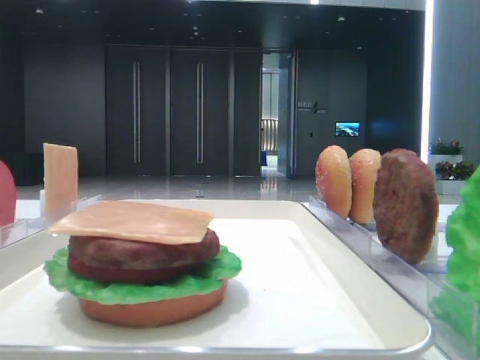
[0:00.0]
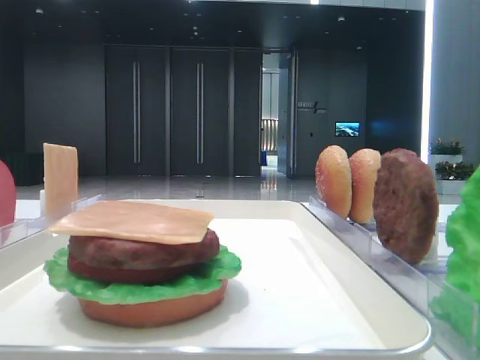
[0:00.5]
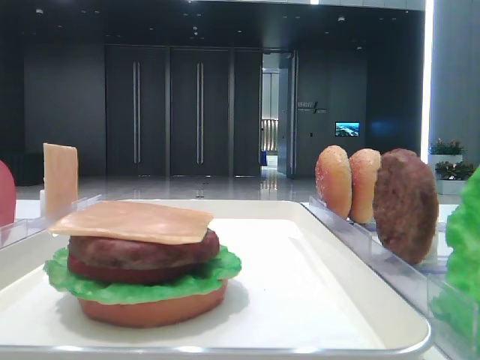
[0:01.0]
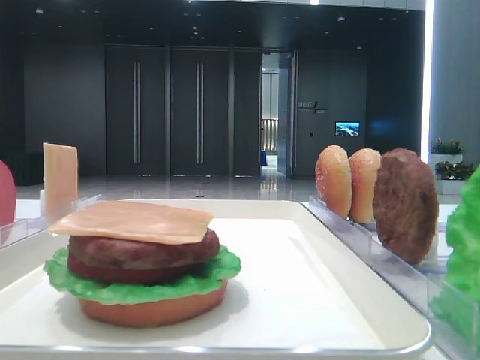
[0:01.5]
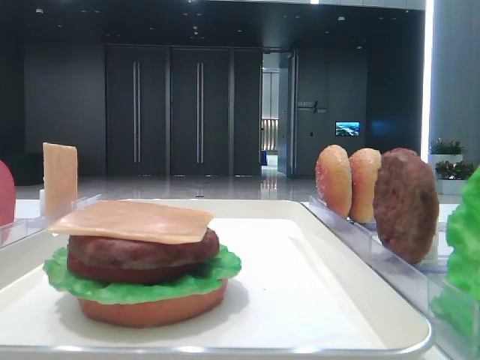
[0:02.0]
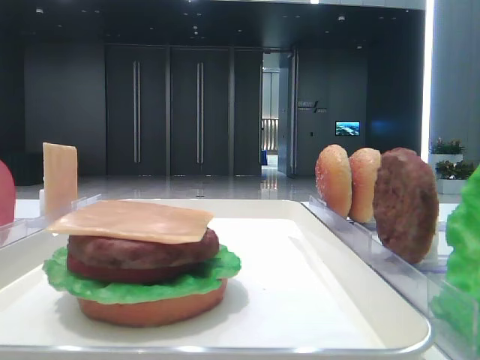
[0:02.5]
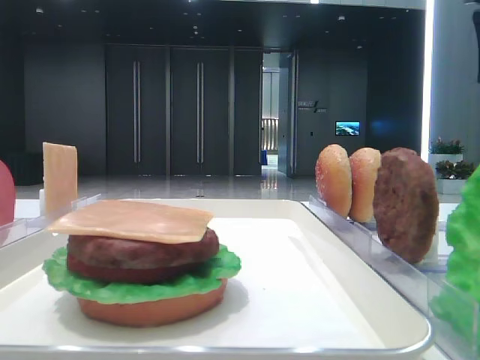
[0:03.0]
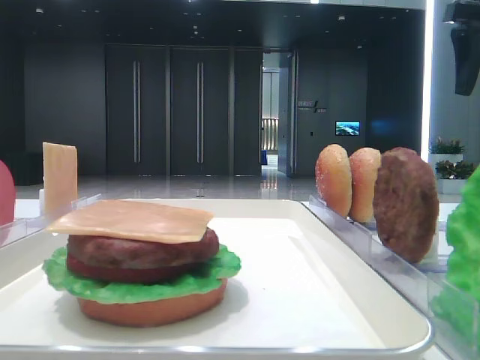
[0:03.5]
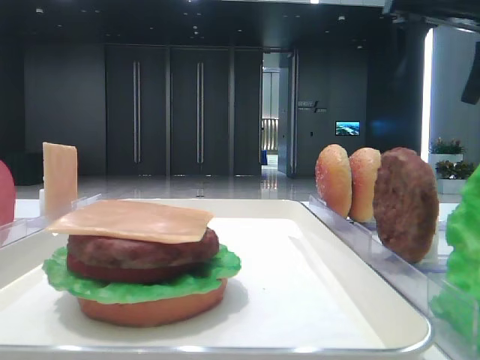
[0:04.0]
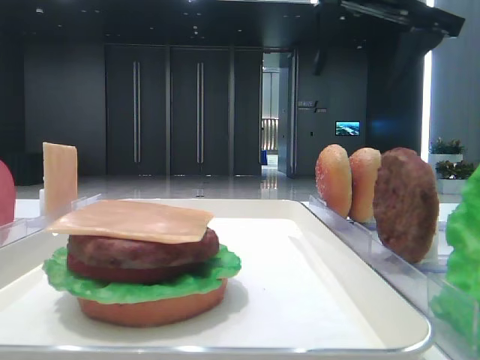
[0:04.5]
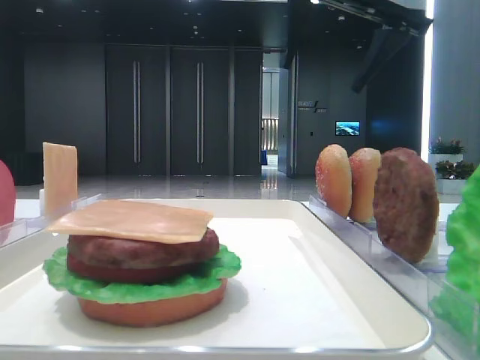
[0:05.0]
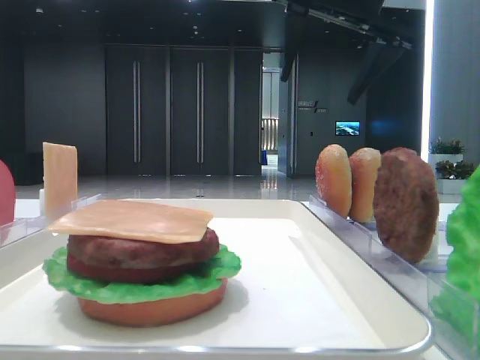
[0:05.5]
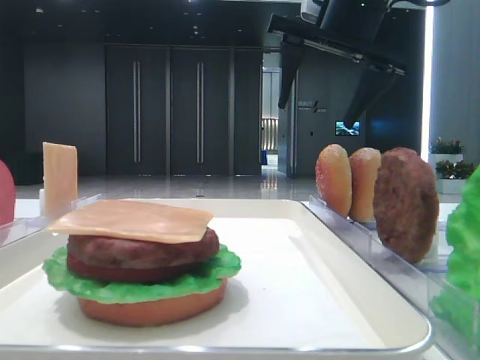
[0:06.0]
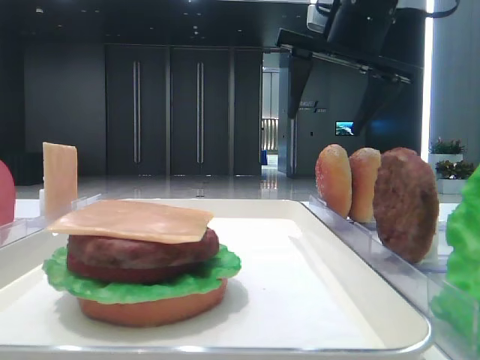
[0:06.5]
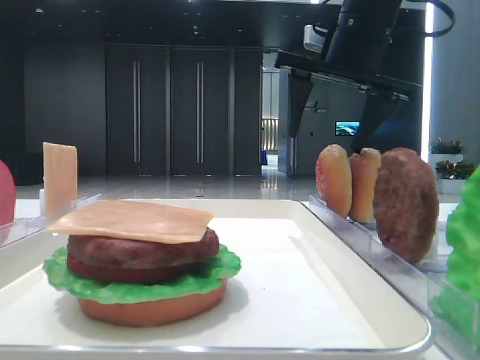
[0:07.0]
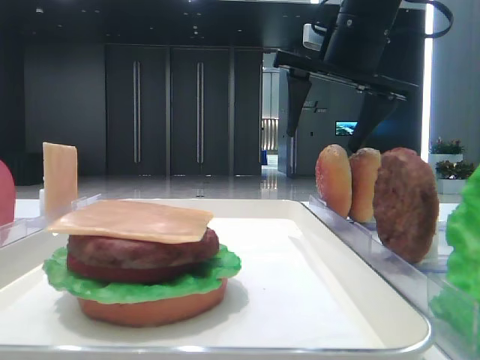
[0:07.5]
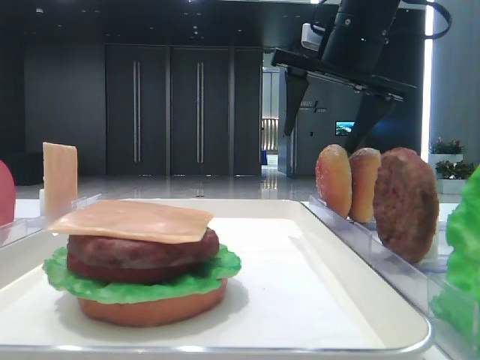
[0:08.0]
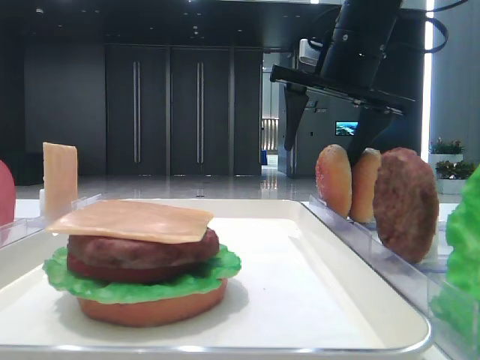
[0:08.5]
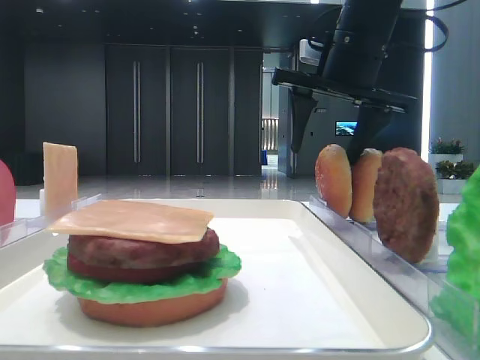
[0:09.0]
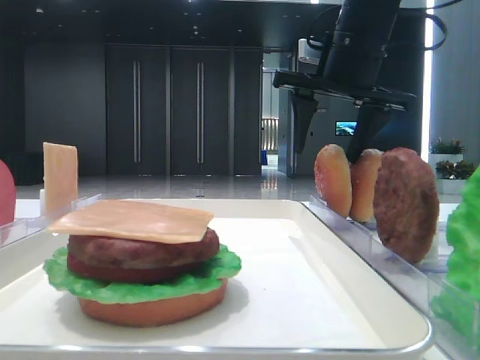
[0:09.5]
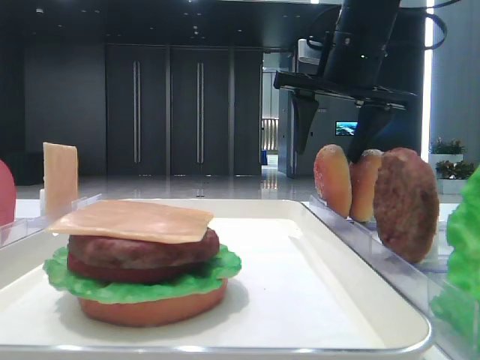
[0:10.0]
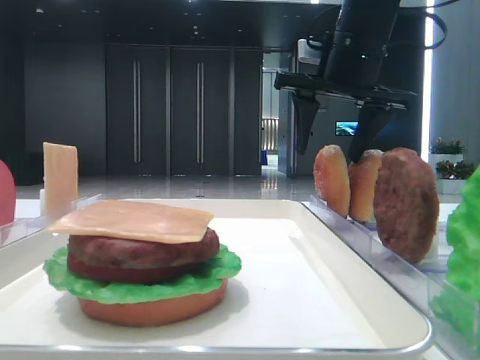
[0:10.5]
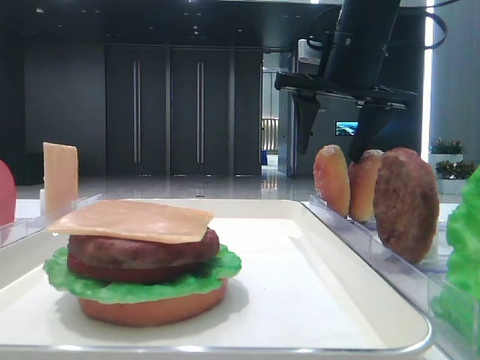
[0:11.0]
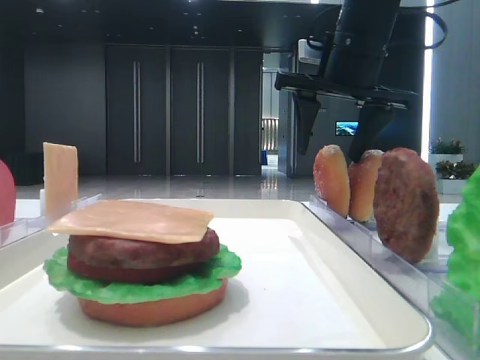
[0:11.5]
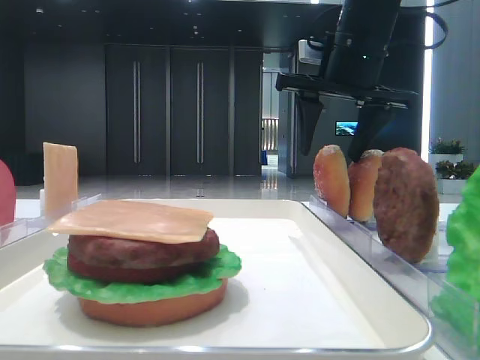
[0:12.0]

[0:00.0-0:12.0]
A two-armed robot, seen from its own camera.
0:02.0 to 0:04.0: The right gripper goes some 25 cm forward.
0:04.0 to 0:06.0: The right gripper is displaced to the left by about 10 cm.
0:06.0 to 0:10.0: The grippers make only small movements.
0:10.0 to 0:12.0: The two grippers keep their place.

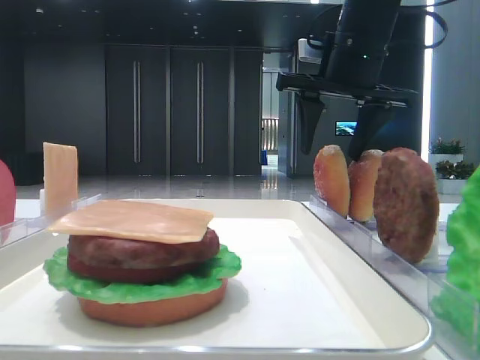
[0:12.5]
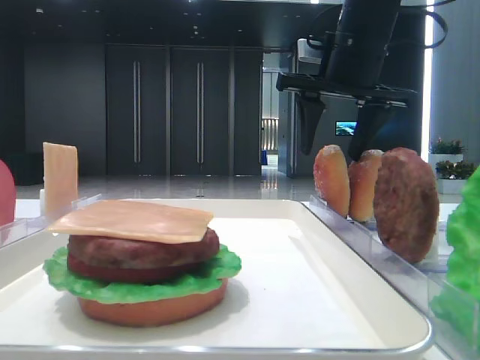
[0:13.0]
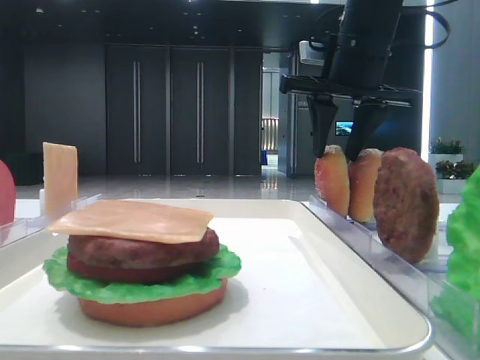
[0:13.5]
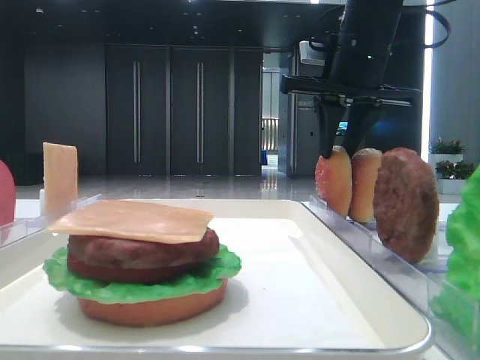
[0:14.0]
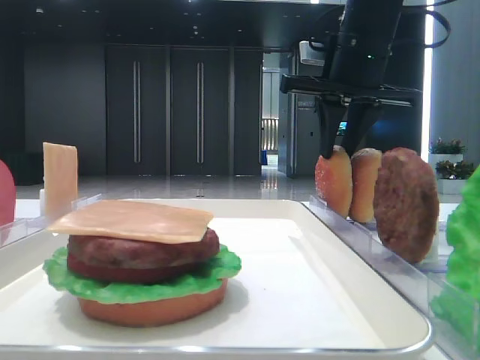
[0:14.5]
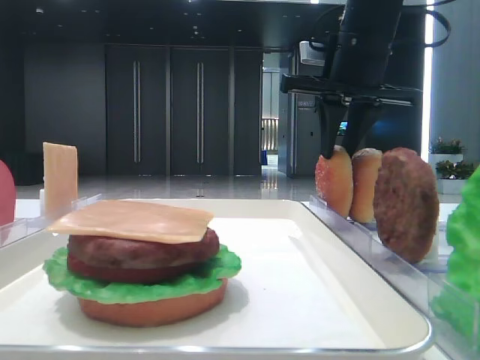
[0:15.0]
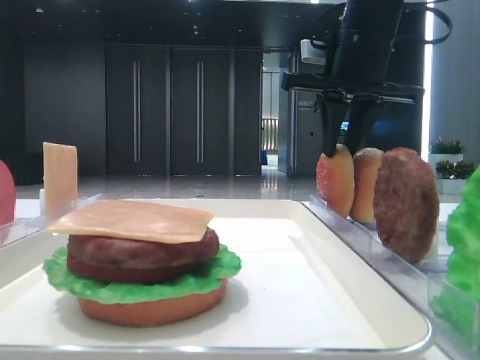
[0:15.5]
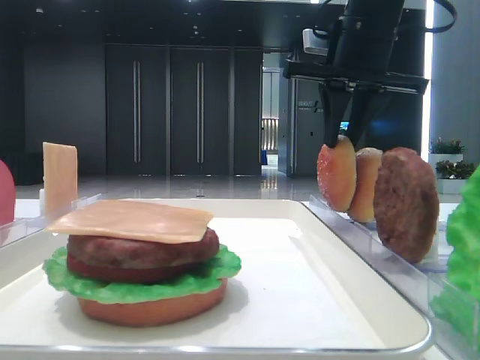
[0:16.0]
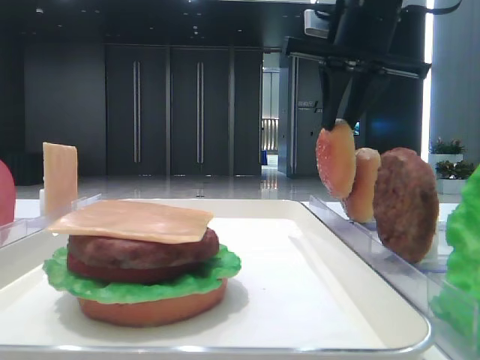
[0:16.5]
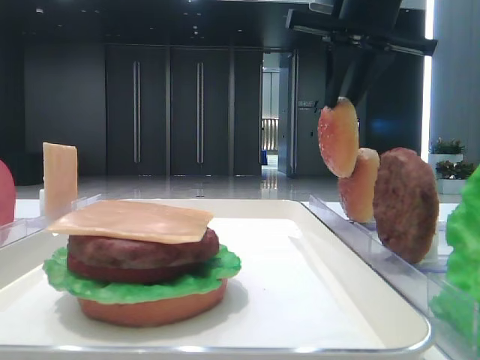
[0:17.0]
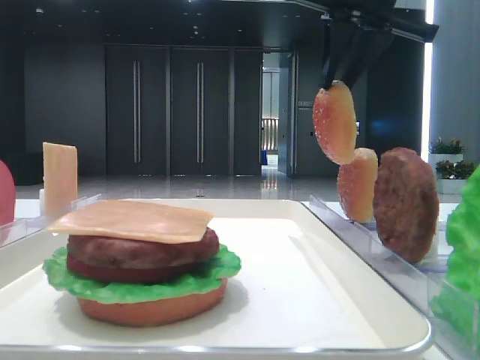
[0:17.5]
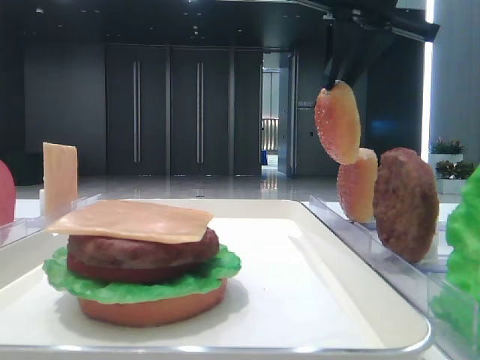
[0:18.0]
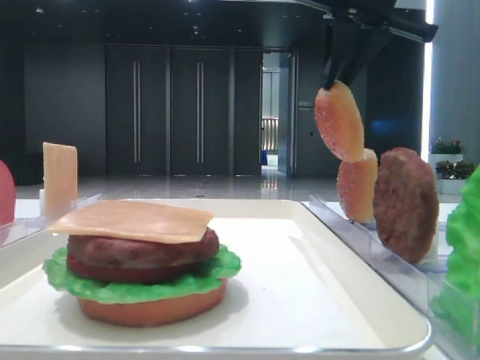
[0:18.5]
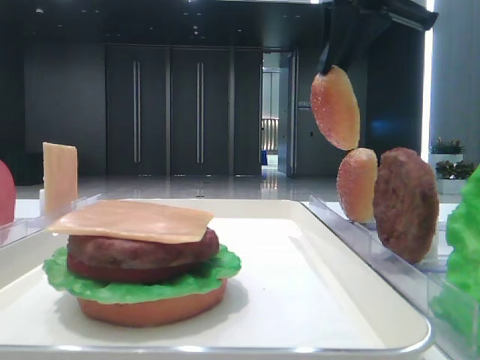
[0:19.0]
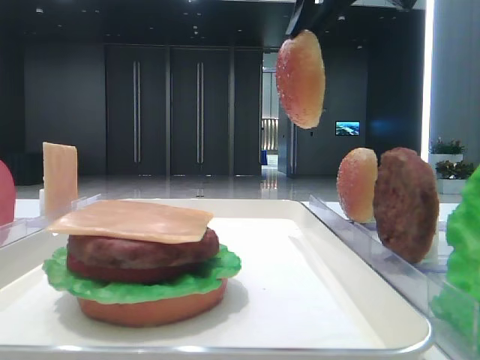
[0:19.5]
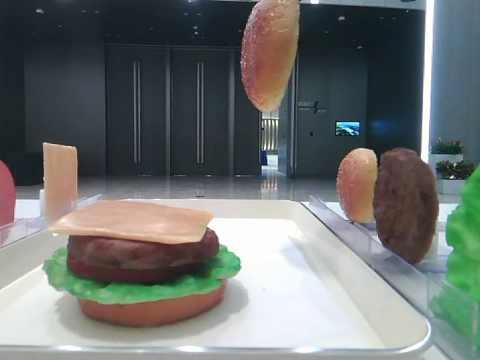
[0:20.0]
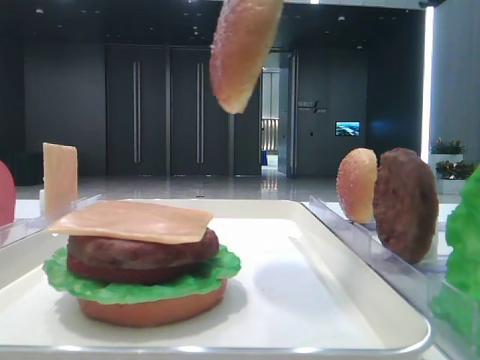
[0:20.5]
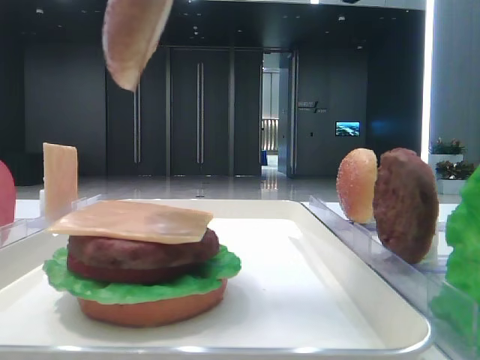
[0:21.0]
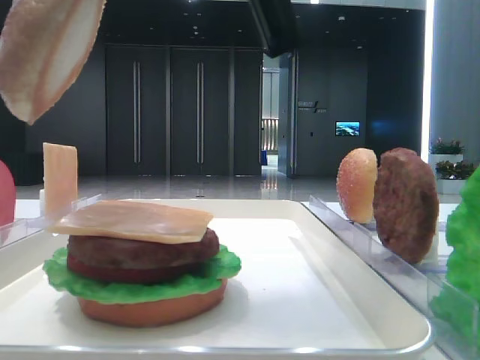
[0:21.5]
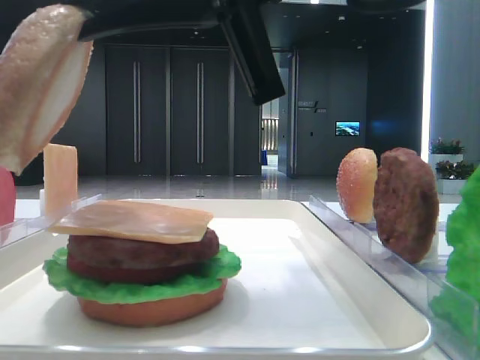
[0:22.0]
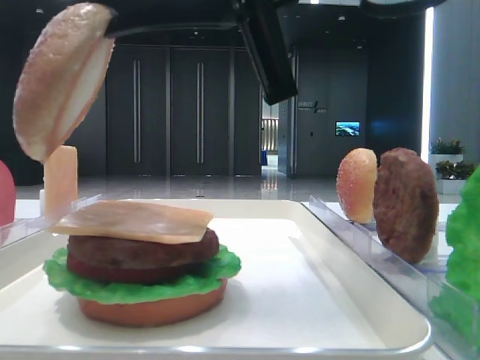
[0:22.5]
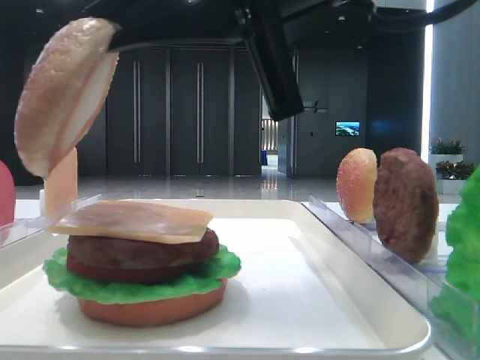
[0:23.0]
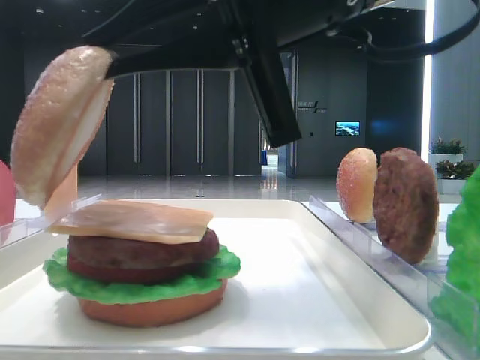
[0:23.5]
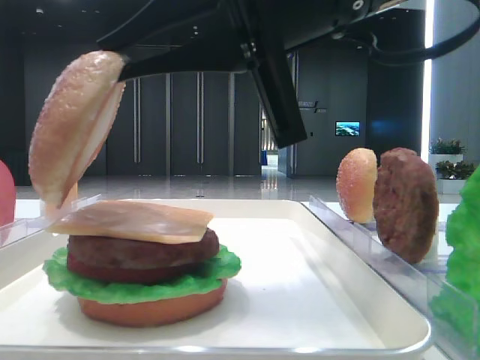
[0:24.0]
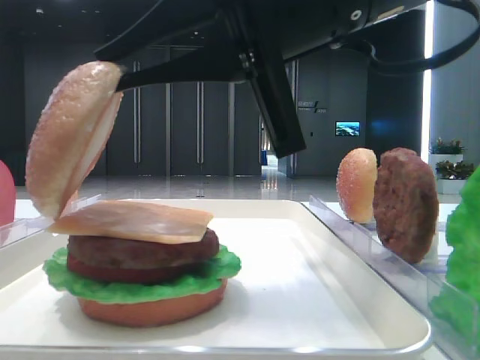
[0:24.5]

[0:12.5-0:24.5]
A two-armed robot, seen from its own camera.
0:12.5 to 0:14.5: The right gripper closes up.
0:14.5 to 0:16.5: The grippers move only a little.
0:16.5 to 0:18.5: The grippers move only a little.
0:18.5 to 0:20.5: The right gripper shifts about 15 cm backward.
0:20.5 to 0:22.5: The right gripper moves to the left and downward, roughly 10 cm.
0:22.5 to 0:24.5: The grippers make only small movements.

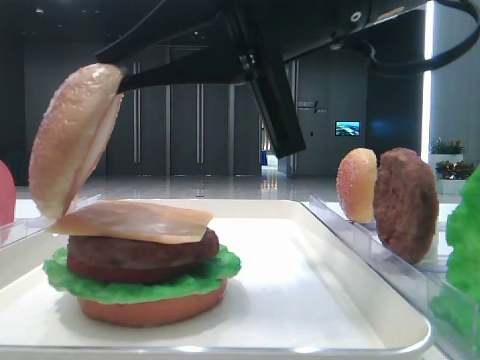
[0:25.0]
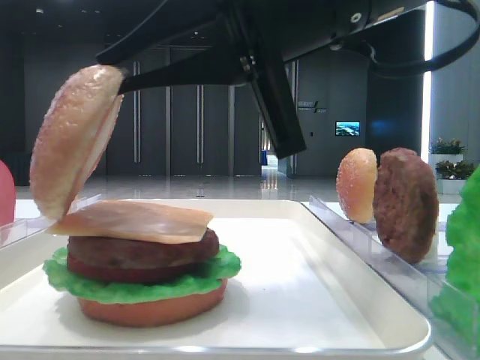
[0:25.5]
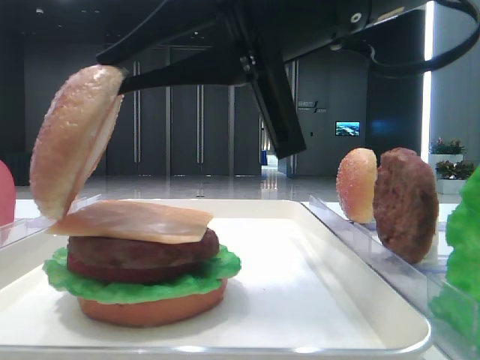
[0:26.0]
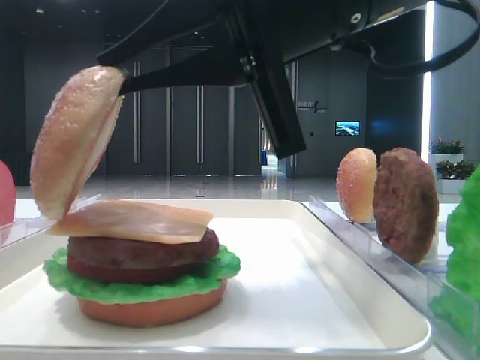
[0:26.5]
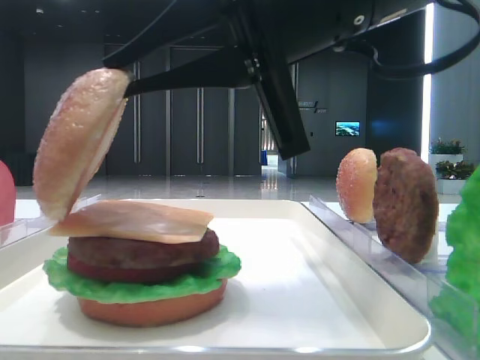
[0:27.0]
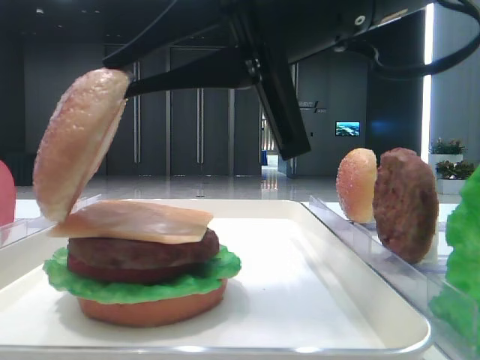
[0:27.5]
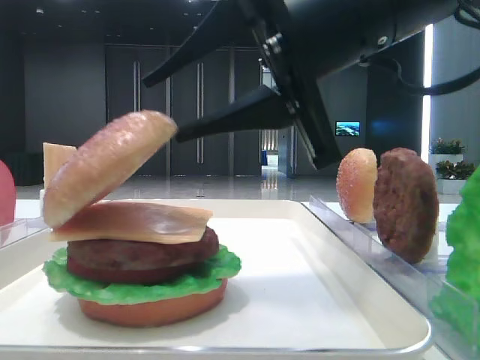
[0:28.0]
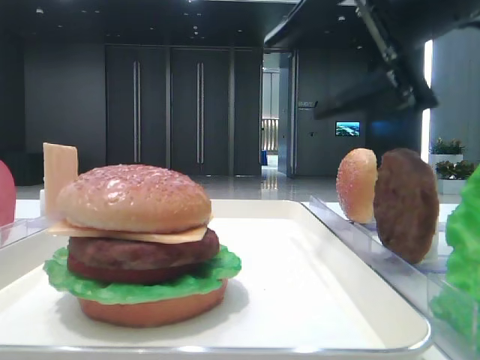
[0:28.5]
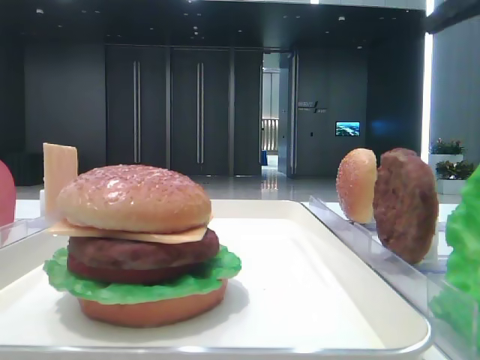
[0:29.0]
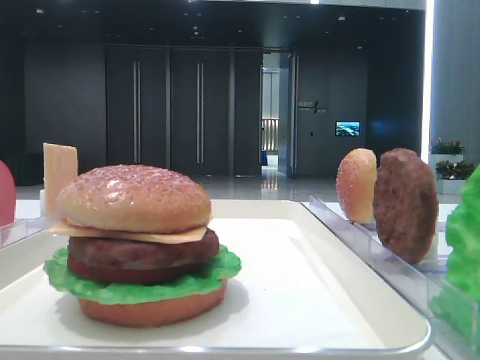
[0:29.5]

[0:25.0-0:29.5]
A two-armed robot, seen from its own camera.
Step, 0:25.0 to 0:28.0: Place the top bread slice on the cheese with the right hand.
0:25.0 to 0:27.0: Both grippers stay put.
0:27.0 to 0:29.5: The right gripper shifts some 25 cm to the right and upward, and opens up.
